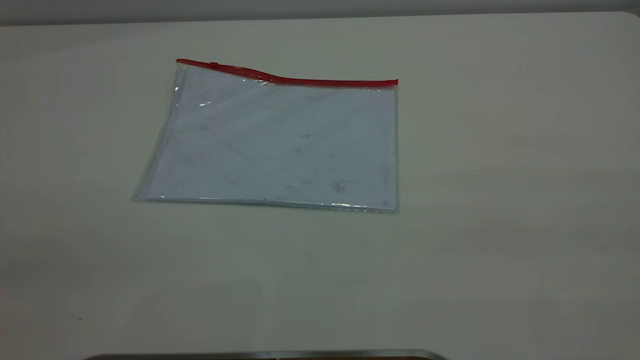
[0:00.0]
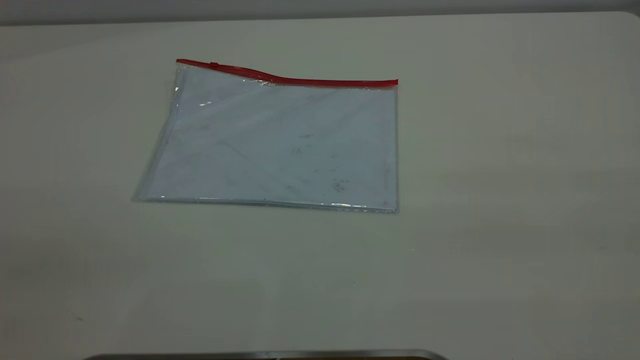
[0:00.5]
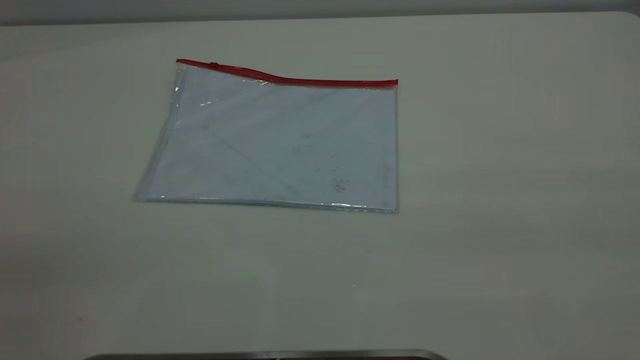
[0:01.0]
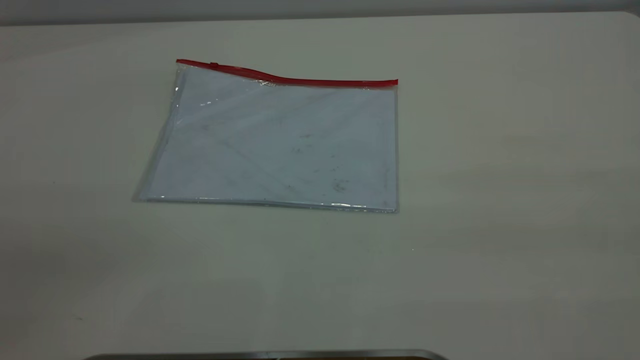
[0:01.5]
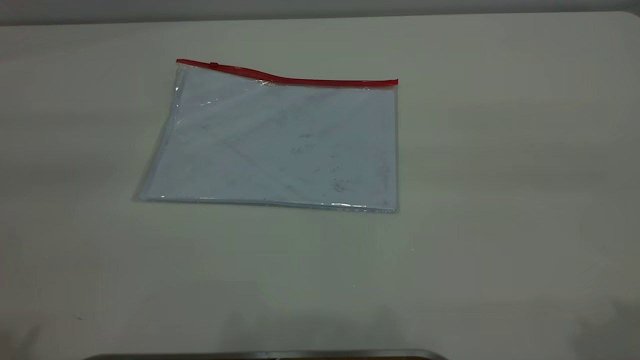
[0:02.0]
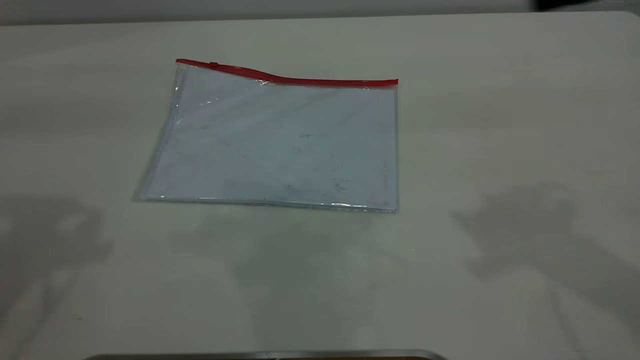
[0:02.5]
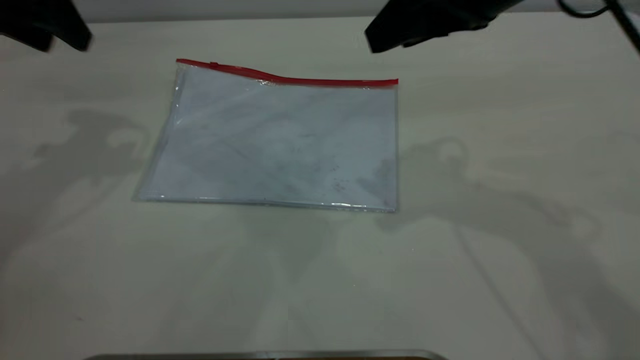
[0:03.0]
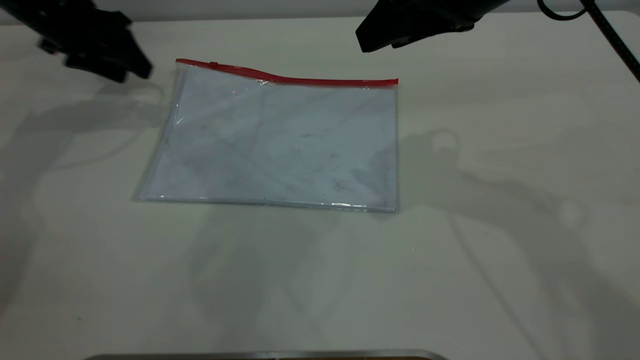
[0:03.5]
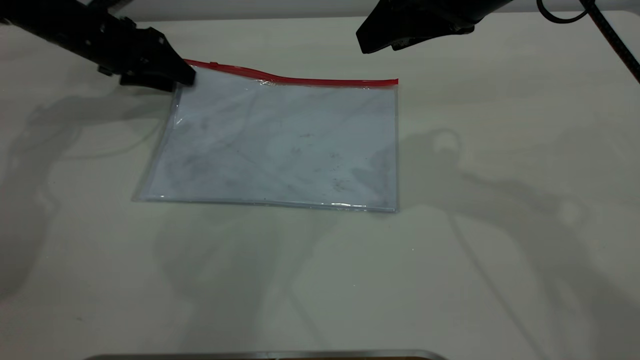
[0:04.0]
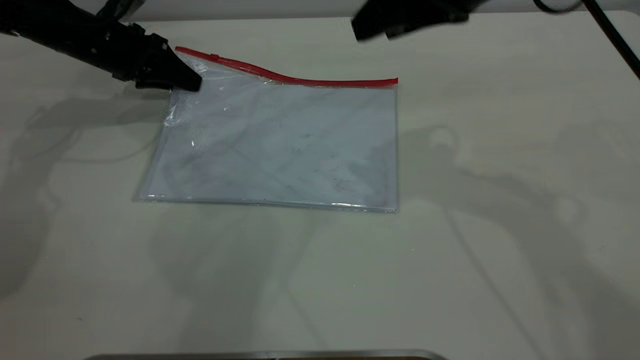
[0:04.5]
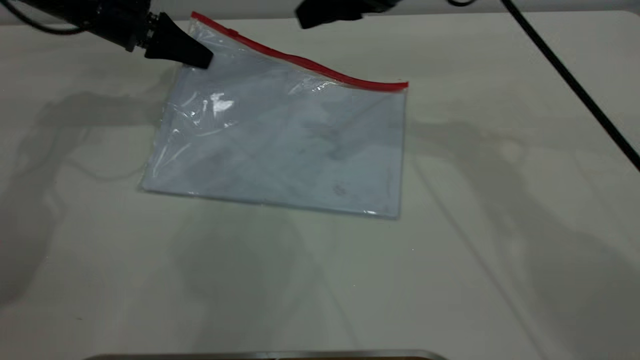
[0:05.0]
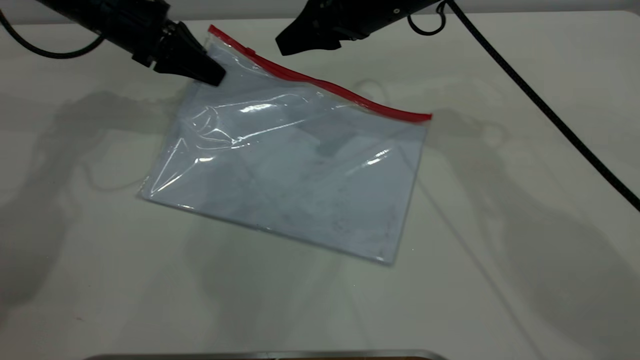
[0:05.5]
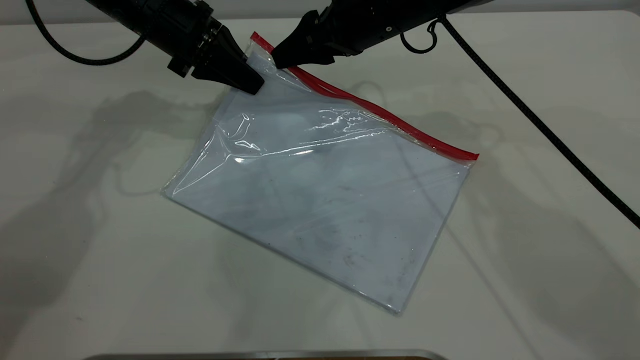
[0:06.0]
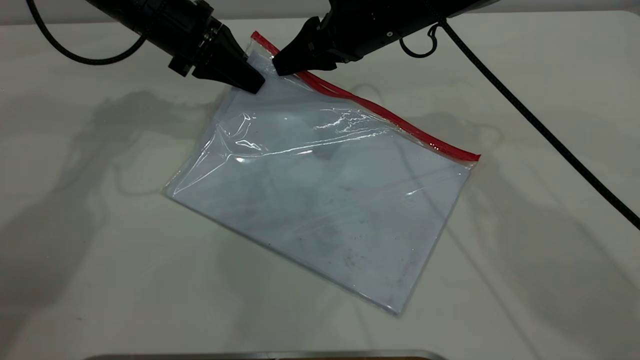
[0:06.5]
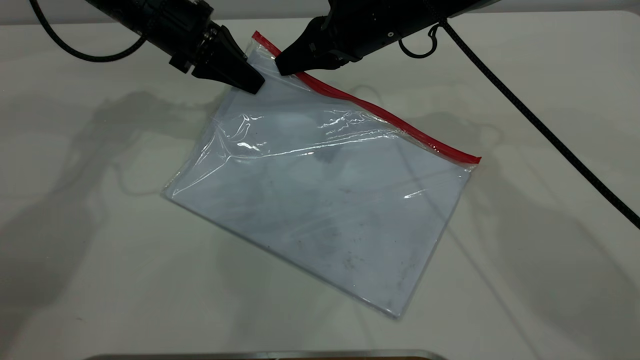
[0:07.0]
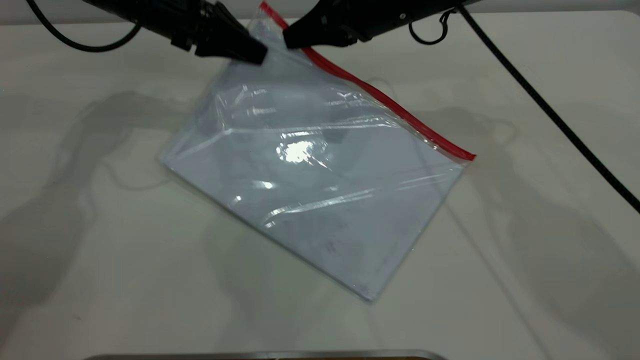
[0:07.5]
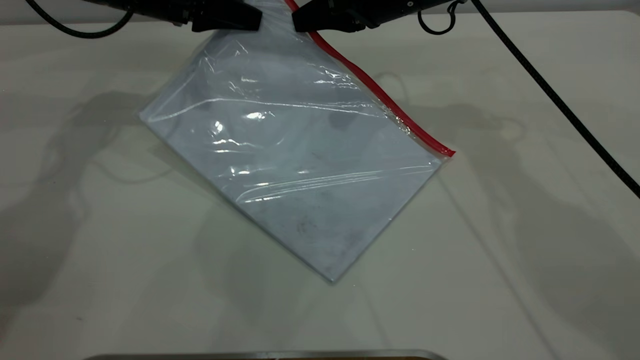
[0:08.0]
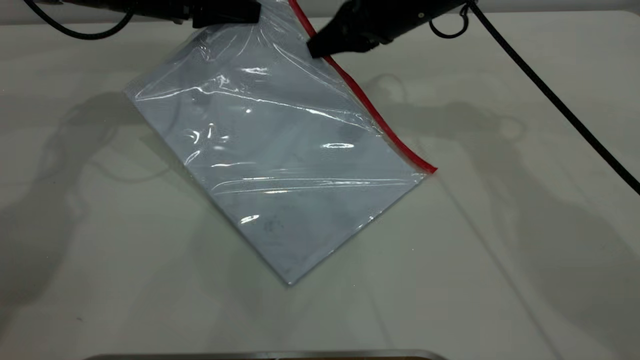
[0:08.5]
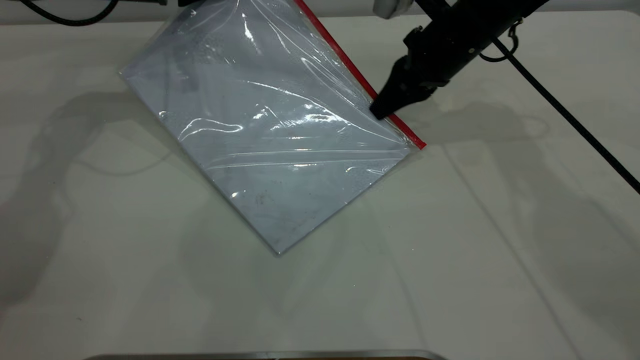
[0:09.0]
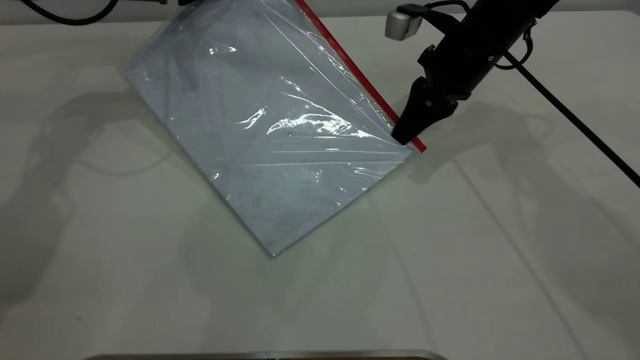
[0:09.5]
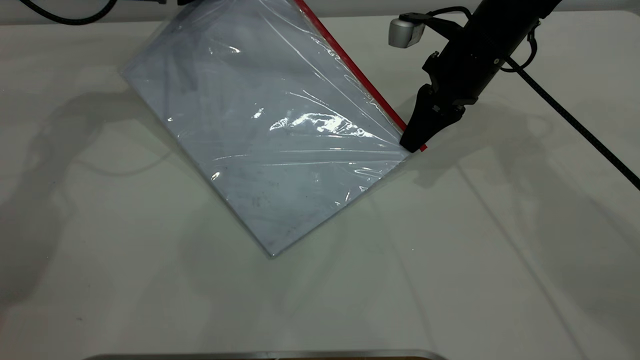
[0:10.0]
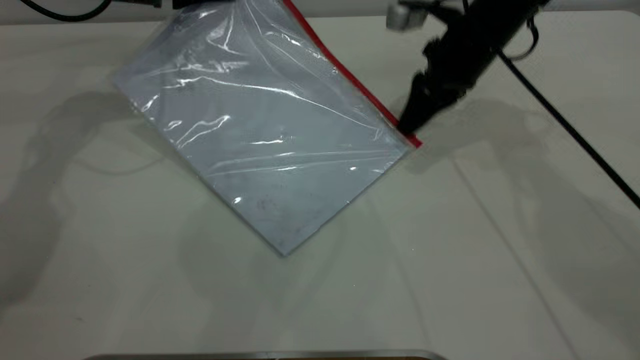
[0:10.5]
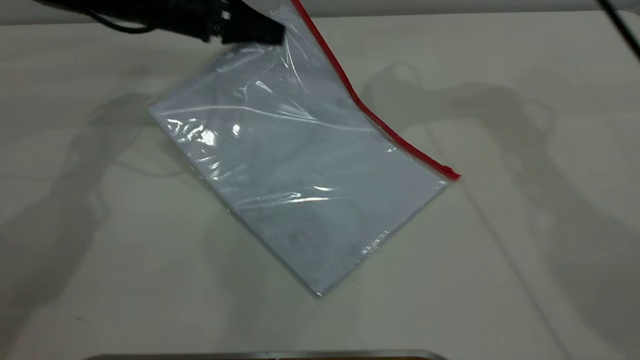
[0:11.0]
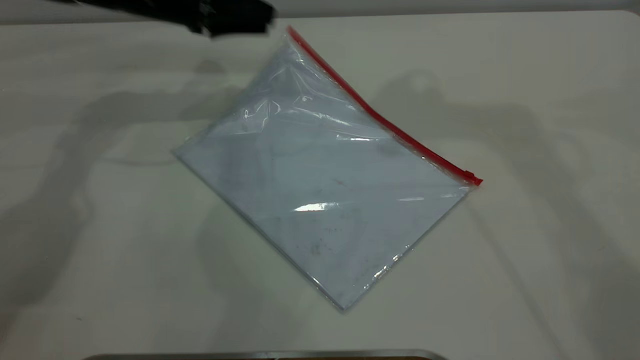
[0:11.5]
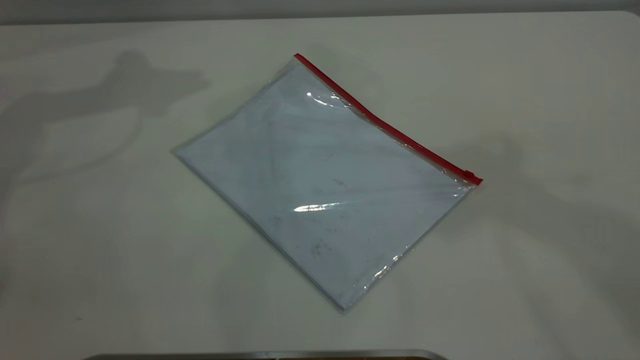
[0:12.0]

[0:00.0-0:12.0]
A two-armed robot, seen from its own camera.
Step, 0:00.0 to 0:04.5: Pick up the transparent plastic bag with the left gripper.
Step, 0:05.0 to 0:10.5: Pulling up the zipper on the transparent plastic bag with the right gripper to close it.
Step, 0:11.0 to 0:11.5: Place the transparent plastic bag.
0:02.0 to 0:04.0: The left gripper is displaced forward and downward by roughly 50 cm, while the right gripper heads forward, to the left and downward, covering about 30 cm.
0:04.0 to 0:06.0: The left gripper travels to the right by about 10 cm, and closes up, while the right gripper travels forward, downward and to the left by about 15 cm.
0:06.0 to 0:08.0: The right gripper closes up.
0:08.0 to 0:10.0: The right gripper travels to the right by about 5 cm.
0:10.0 to 0:12.0: The left gripper goes roughly 20 cm upward, and opens; the right gripper is displaced upward by roughly 50 cm, and opens.

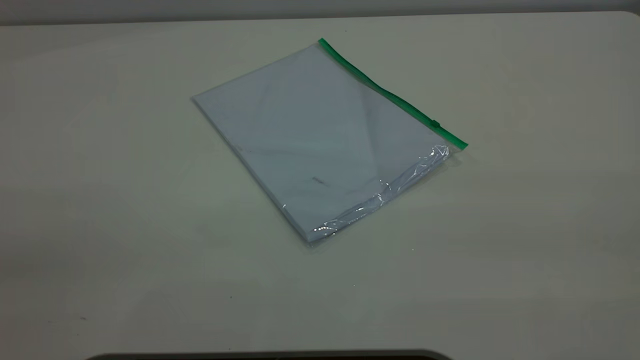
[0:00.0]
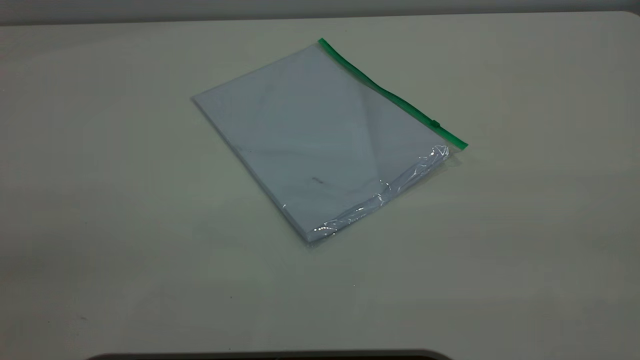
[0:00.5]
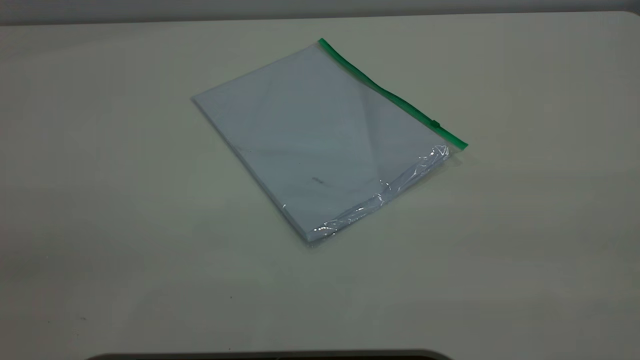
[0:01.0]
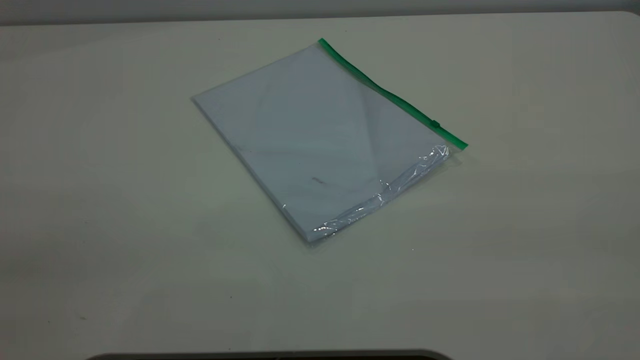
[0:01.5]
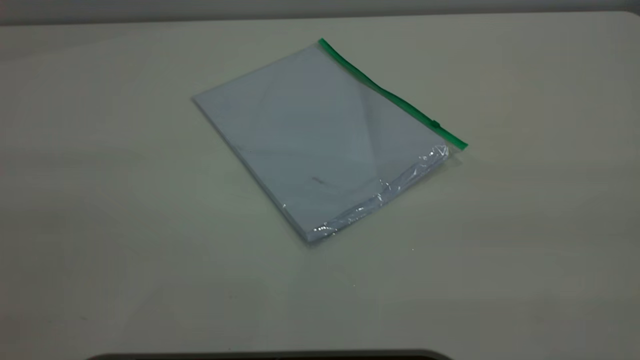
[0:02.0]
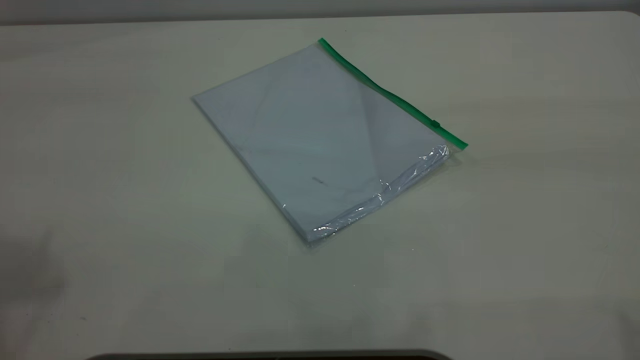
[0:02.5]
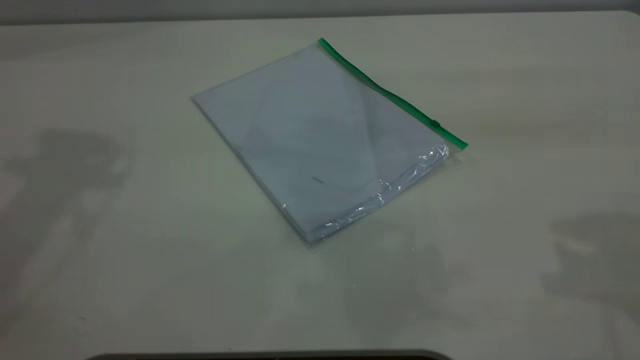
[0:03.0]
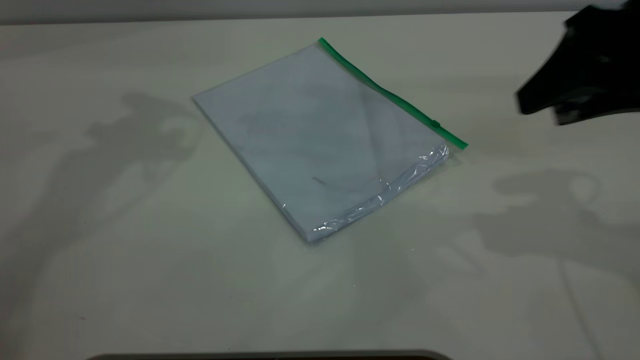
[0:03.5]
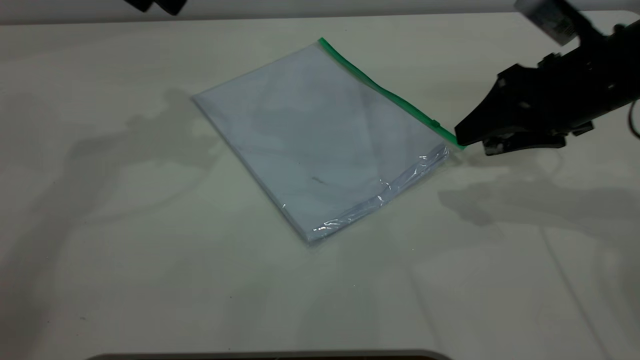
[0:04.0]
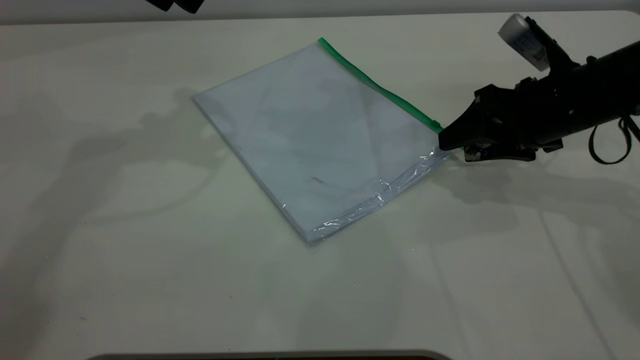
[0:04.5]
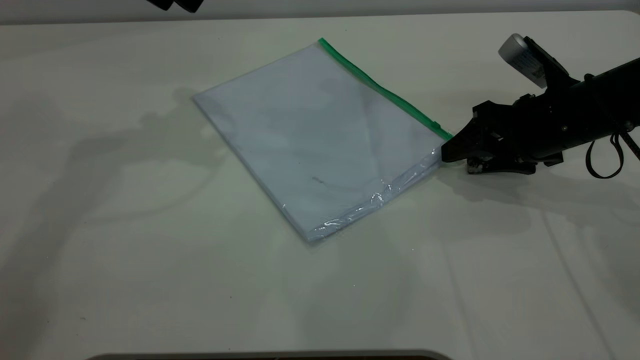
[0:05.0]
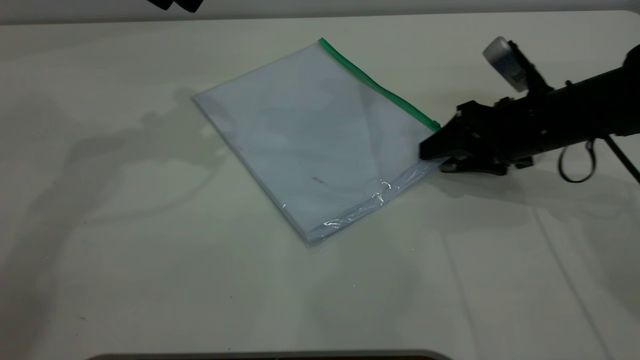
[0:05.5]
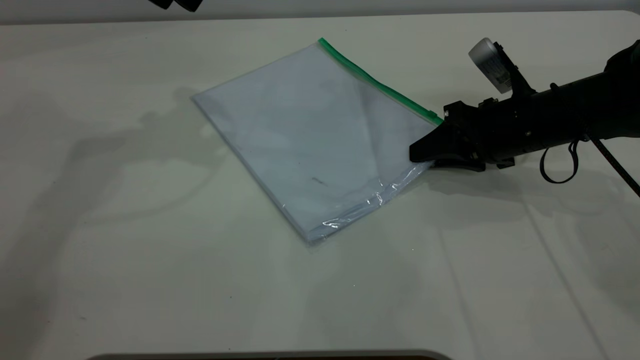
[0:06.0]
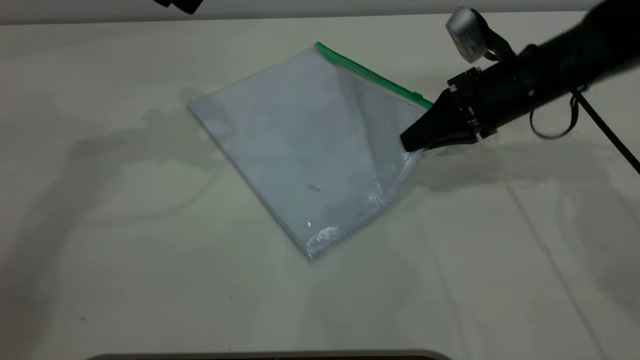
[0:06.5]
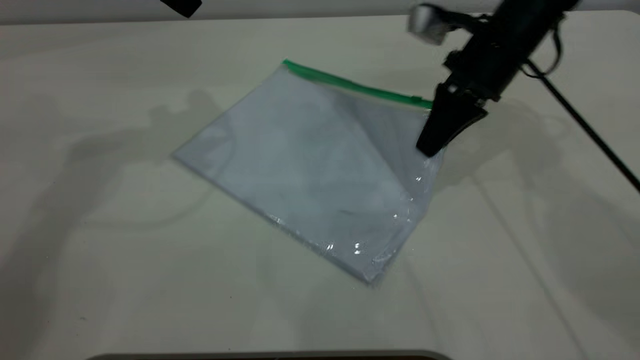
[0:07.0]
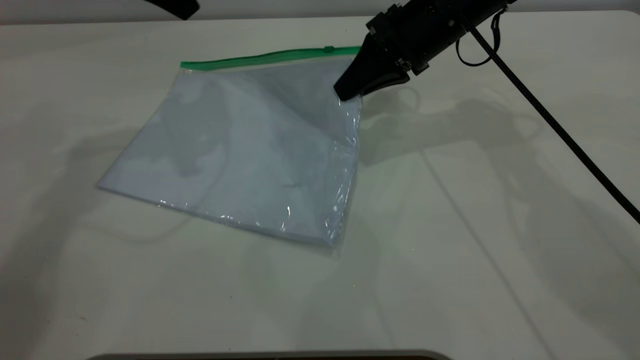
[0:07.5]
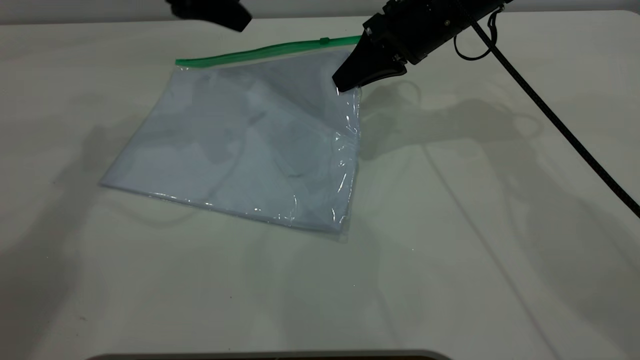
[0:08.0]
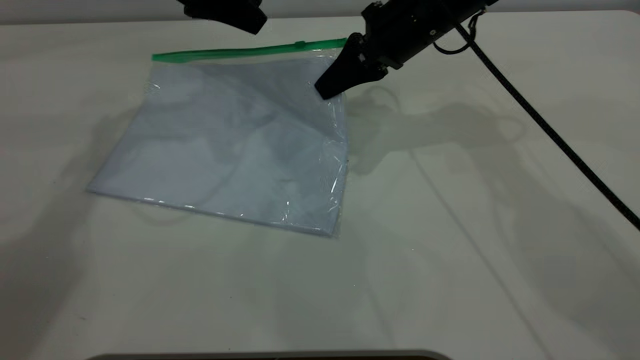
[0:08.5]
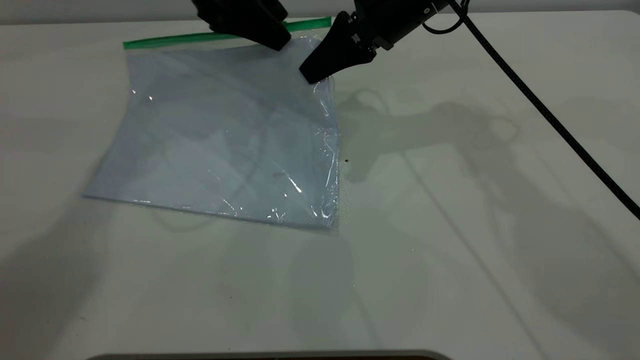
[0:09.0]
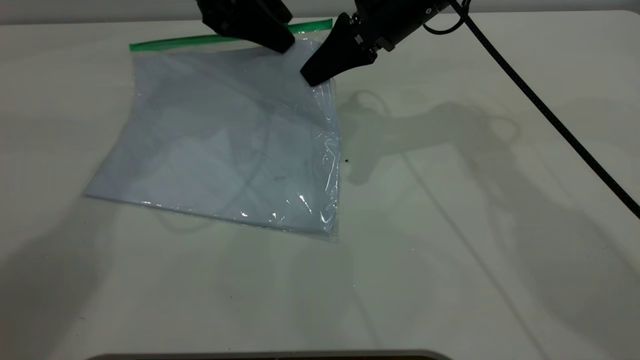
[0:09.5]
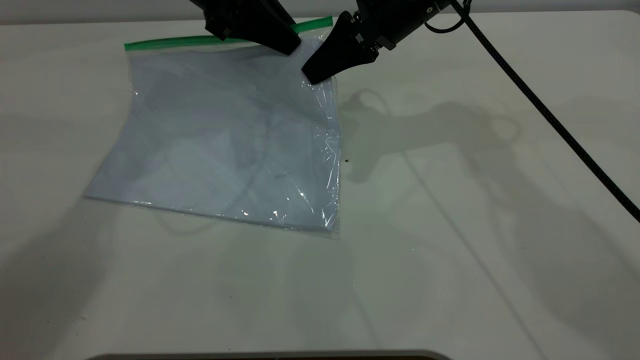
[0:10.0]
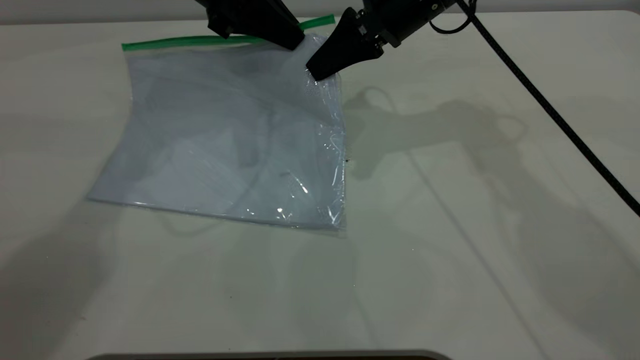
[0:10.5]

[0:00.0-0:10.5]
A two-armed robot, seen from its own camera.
Step, 0:00.0 to 0:06.0: Pick up the transparent plastic bag with the right gripper.
0:02.0 to 0:04.0: The right gripper heads forward and downward, covering some 40 cm.
0:04.0 to 0:06.5: The right gripper shifts roughly 5 cm forward, and closes its fingers.
0:06.5 to 0:08.5: The left gripper travels downward by some 5 cm. The right gripper heads to the left and upward, covering some 10 cm.
0:08.5 to 0:10.5: The left gripper closes.
